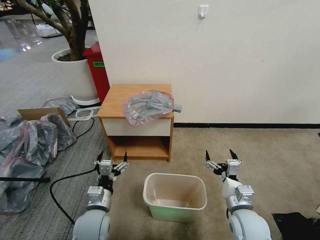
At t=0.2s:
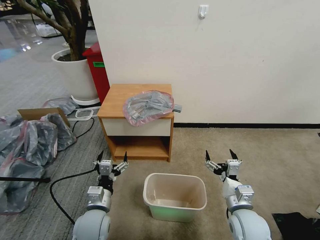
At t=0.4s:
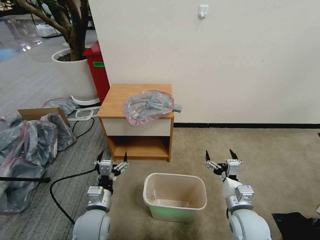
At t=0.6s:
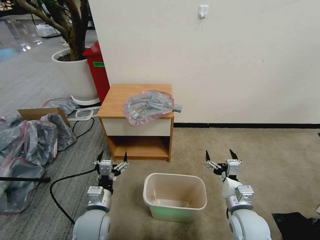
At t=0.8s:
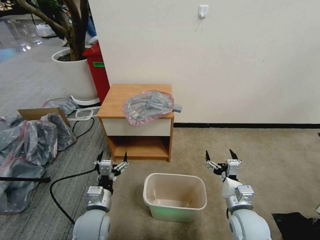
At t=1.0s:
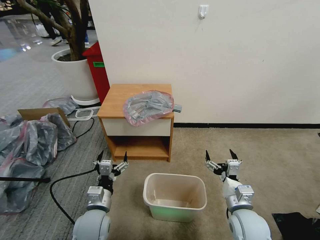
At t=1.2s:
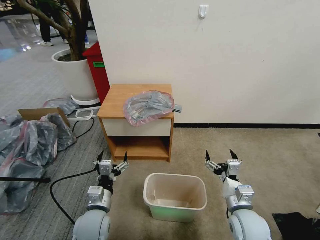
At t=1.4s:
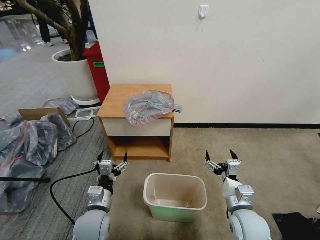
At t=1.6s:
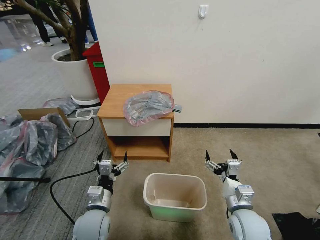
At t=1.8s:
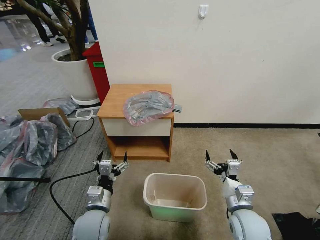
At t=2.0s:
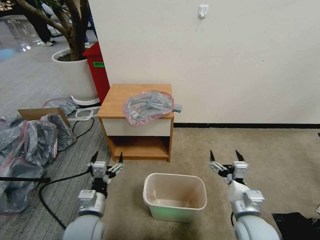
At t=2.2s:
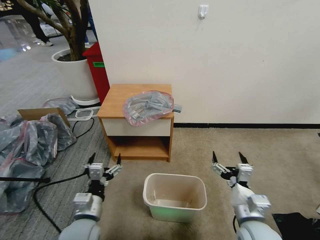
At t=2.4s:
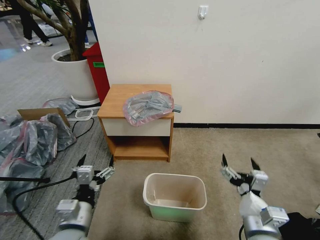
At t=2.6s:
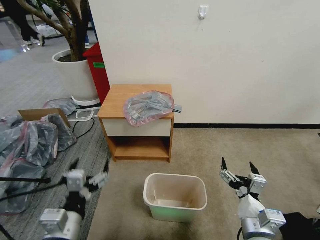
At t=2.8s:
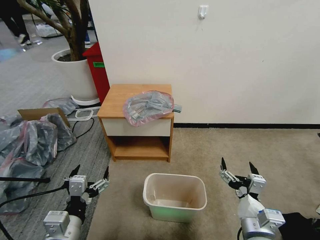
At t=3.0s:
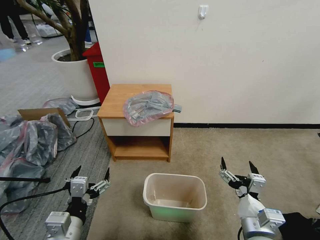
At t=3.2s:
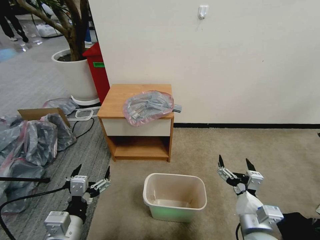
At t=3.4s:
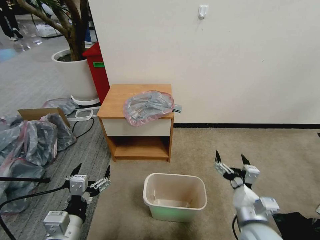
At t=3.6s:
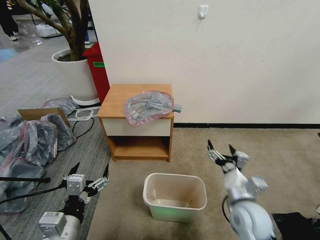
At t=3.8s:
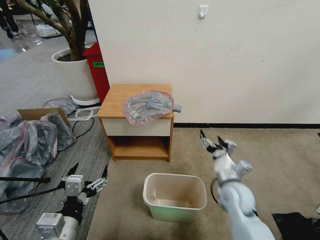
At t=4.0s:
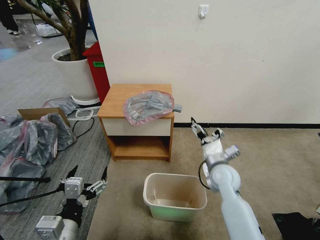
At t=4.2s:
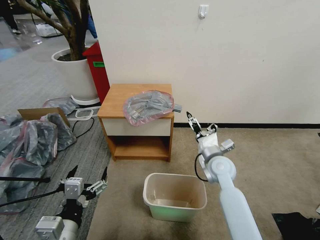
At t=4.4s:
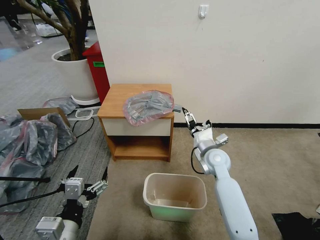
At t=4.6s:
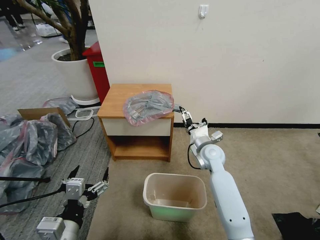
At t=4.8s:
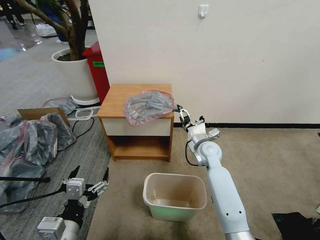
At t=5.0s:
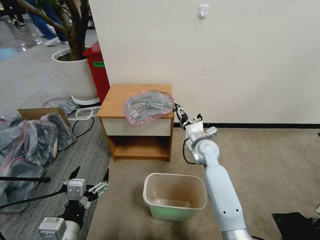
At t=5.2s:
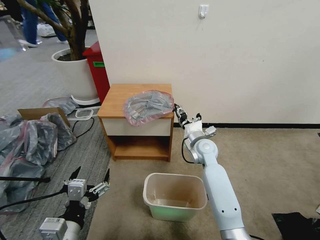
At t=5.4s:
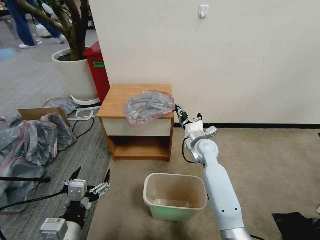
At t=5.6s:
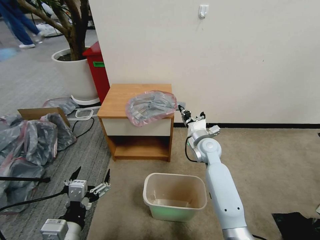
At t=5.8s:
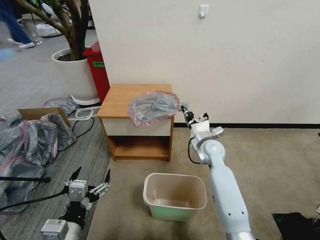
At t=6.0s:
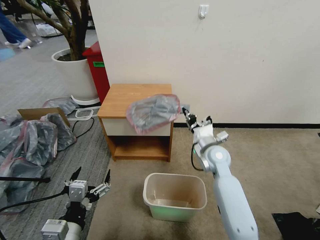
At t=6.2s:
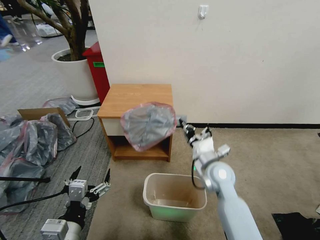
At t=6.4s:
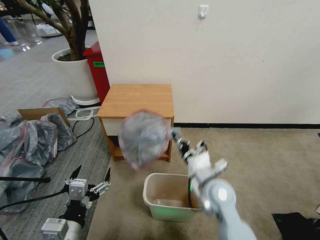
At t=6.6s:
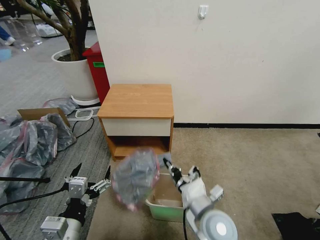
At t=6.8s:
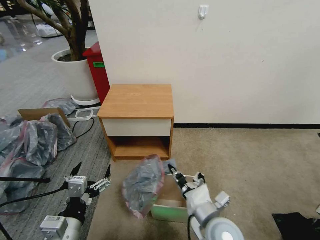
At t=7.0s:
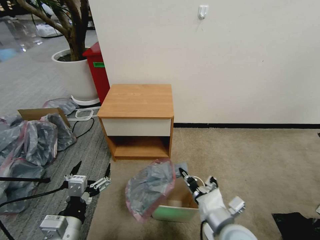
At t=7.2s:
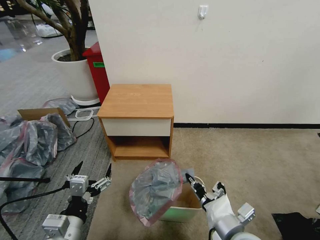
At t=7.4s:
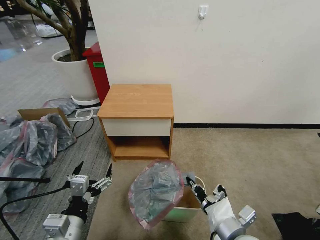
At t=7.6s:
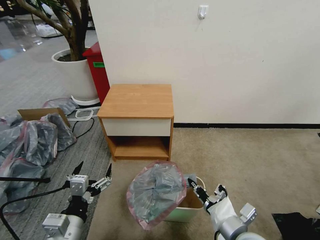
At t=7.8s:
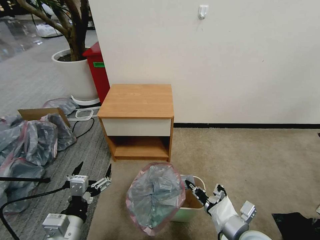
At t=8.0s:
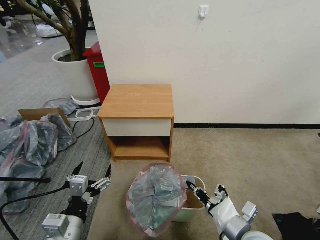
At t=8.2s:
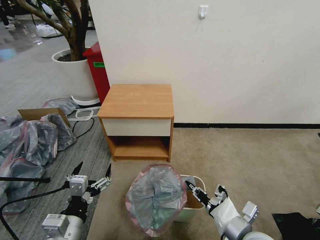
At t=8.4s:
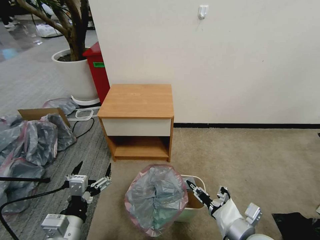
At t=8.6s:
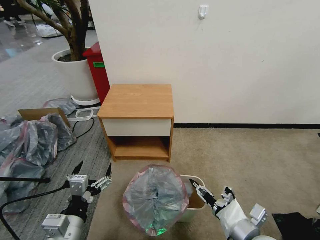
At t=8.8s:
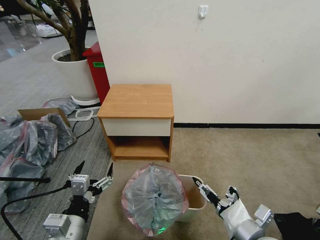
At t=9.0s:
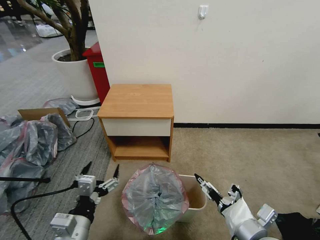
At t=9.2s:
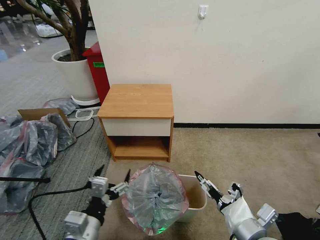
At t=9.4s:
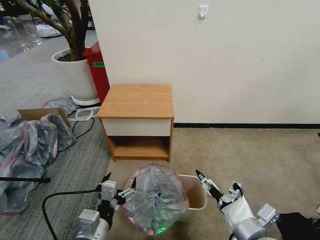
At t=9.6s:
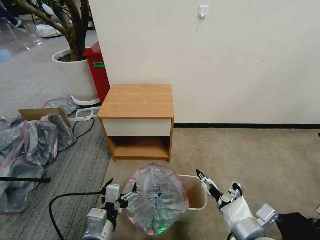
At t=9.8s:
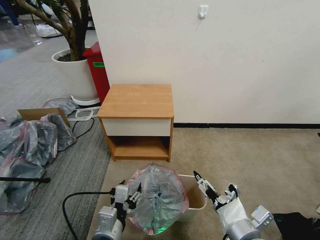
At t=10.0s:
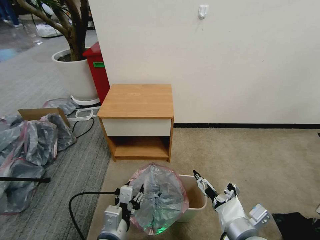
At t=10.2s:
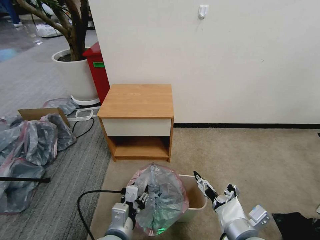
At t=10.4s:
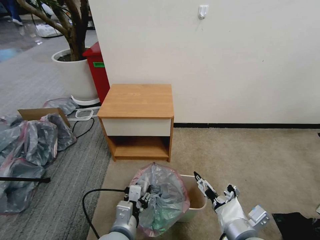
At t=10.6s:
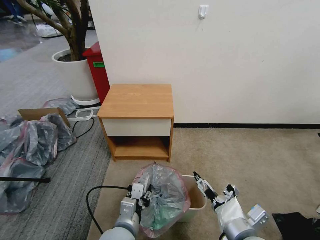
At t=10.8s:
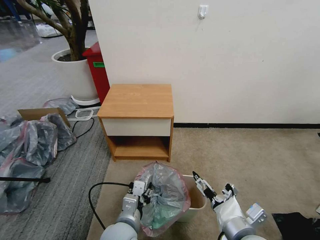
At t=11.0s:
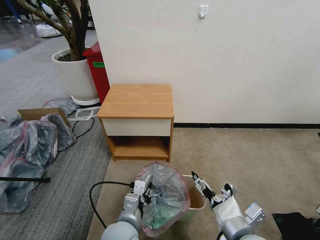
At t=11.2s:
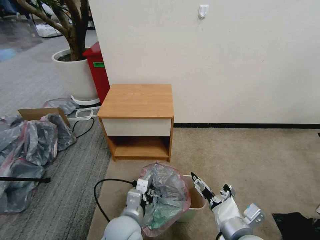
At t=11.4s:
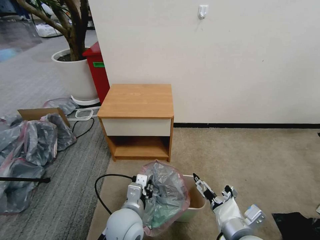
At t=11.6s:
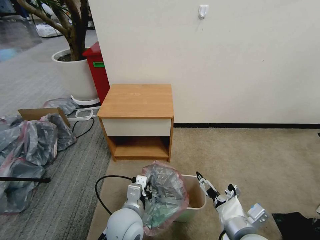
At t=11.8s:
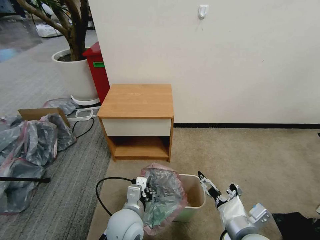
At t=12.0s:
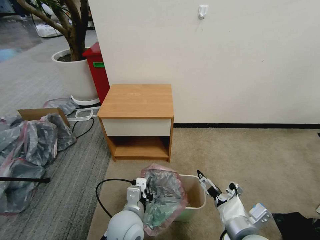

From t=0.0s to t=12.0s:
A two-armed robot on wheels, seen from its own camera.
Task of the whole recording: Pick up the garbage bag from the table and place it over the trash can.
From t=1.6s to t=3.0s: The right gripper travels backward by approximately 5 cm. The left gripper travels backward and upward by some 15 cm.
From t=3.0s to t=4.4s: The right gripper shifts about 25 cm forward.
From t=4.4s to t=6.0s: The right gripper closes its fingers.
From t=6.0s to t=7.6s: The right gripper moves backward, roughly 25 cm.
From t=7.6s to t=9.0s: The right gripper opens.
From t=9.0s to t=10.4s: The left gripper heads to the right, covering some 10 cm, and closes.
From t=10.4s to t=12.0s: The left gripper travels forward by roughly 5 cm, and closes up.

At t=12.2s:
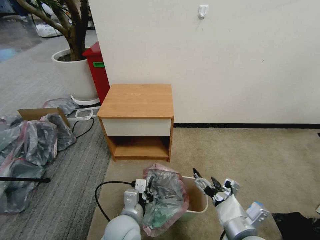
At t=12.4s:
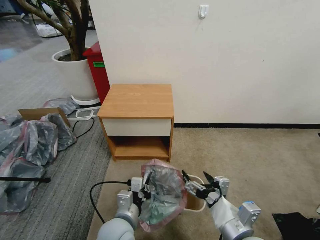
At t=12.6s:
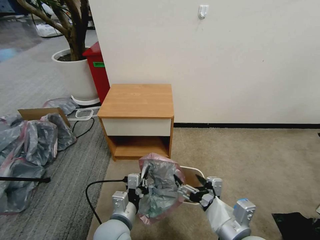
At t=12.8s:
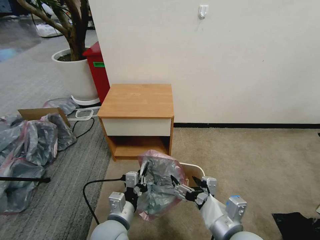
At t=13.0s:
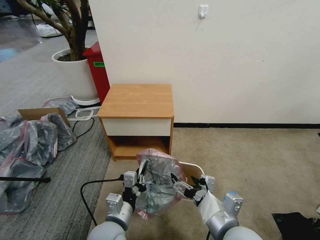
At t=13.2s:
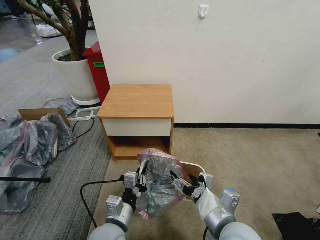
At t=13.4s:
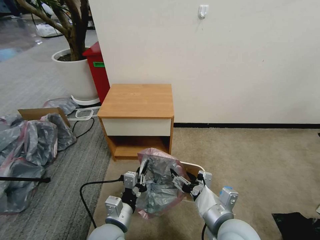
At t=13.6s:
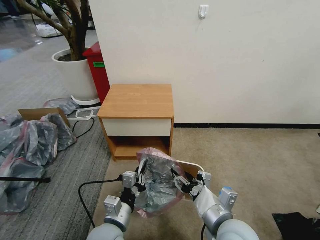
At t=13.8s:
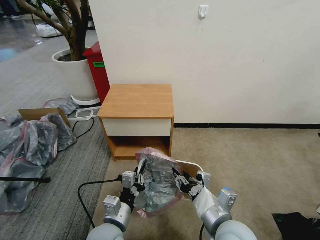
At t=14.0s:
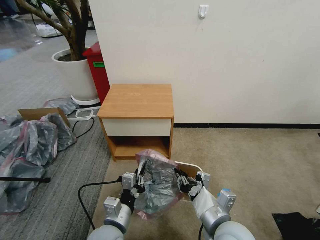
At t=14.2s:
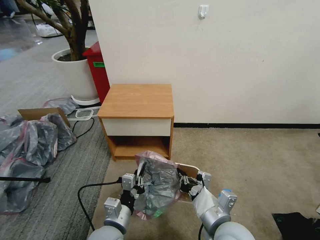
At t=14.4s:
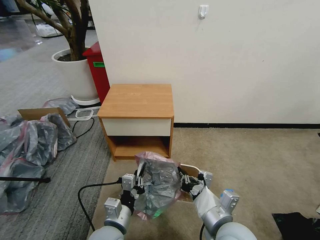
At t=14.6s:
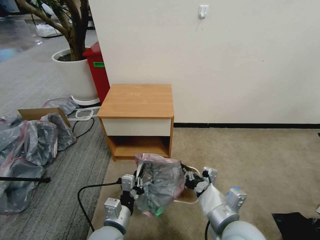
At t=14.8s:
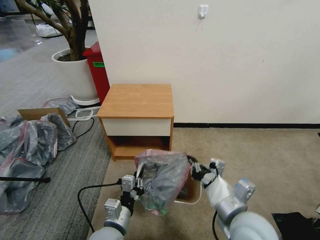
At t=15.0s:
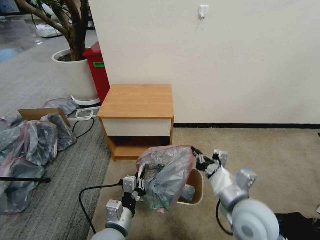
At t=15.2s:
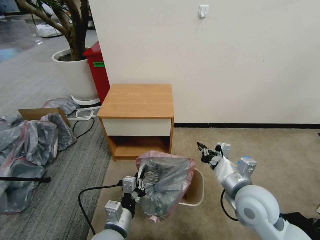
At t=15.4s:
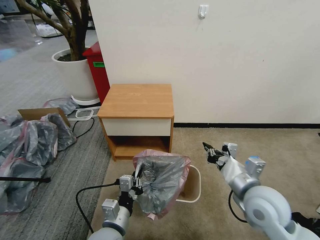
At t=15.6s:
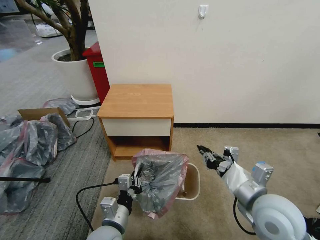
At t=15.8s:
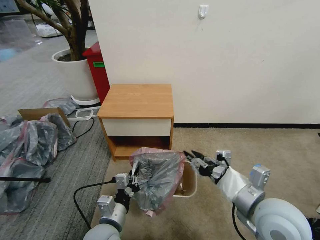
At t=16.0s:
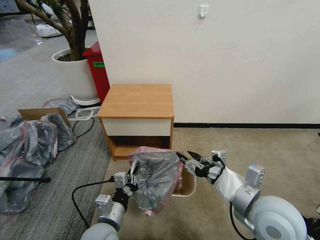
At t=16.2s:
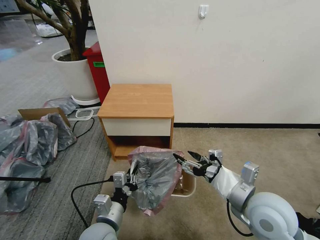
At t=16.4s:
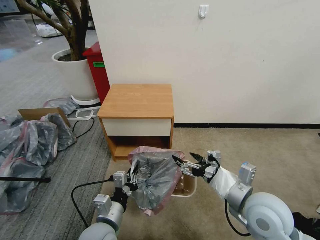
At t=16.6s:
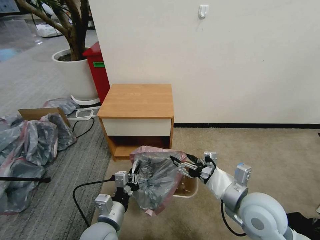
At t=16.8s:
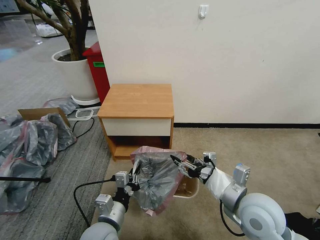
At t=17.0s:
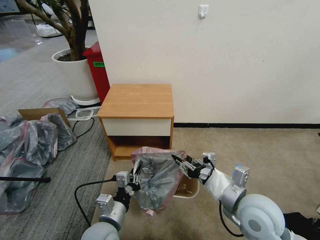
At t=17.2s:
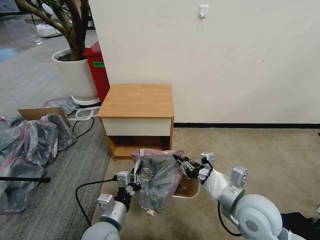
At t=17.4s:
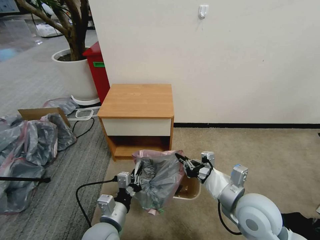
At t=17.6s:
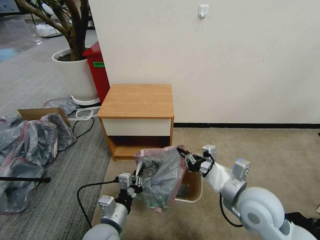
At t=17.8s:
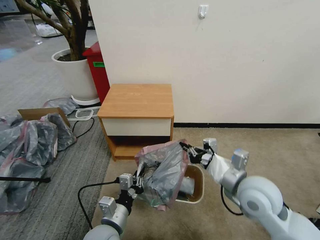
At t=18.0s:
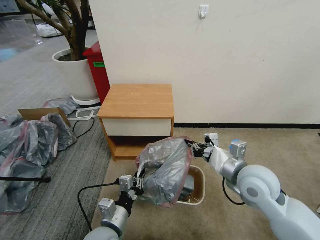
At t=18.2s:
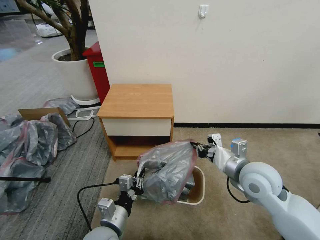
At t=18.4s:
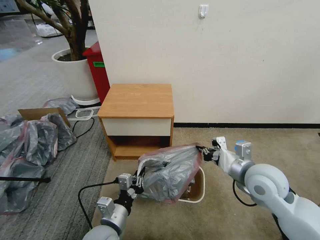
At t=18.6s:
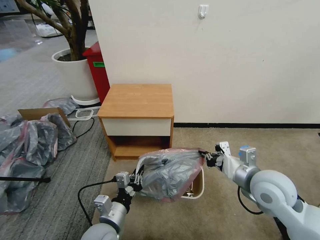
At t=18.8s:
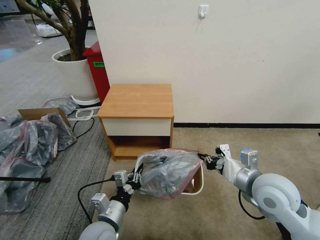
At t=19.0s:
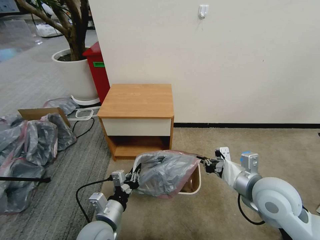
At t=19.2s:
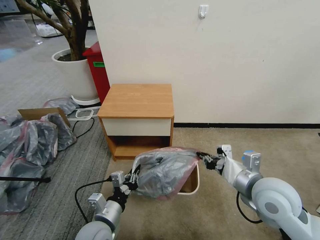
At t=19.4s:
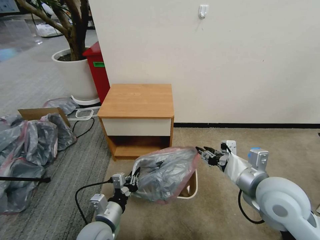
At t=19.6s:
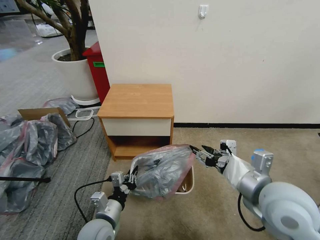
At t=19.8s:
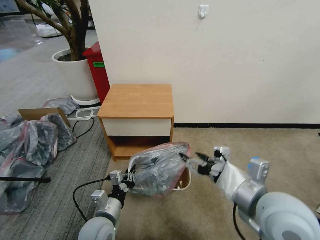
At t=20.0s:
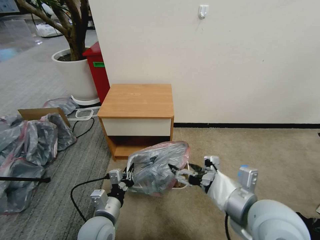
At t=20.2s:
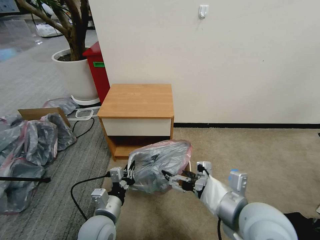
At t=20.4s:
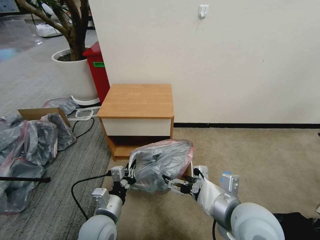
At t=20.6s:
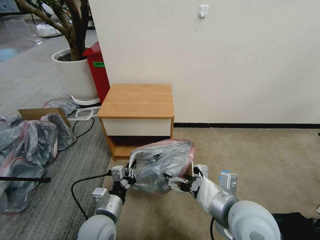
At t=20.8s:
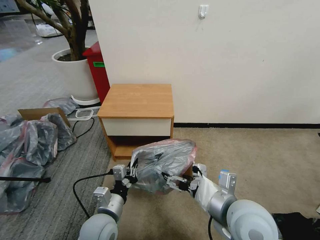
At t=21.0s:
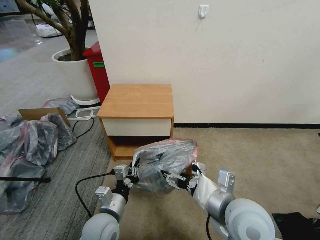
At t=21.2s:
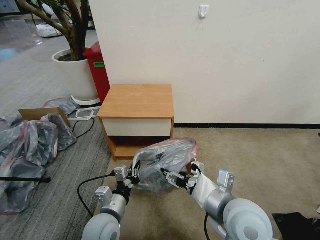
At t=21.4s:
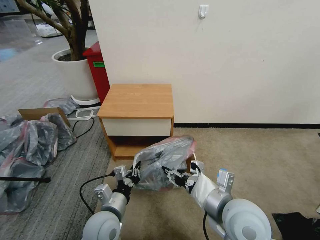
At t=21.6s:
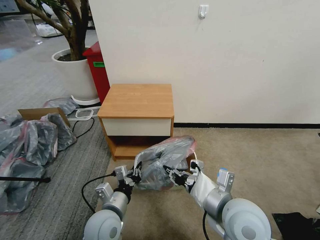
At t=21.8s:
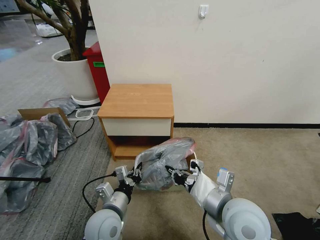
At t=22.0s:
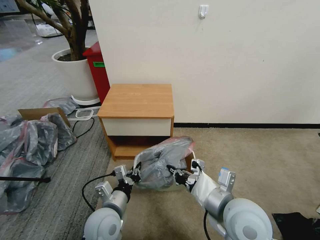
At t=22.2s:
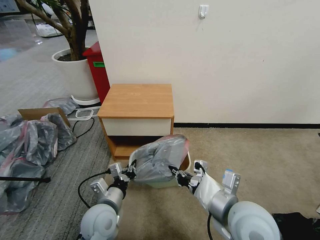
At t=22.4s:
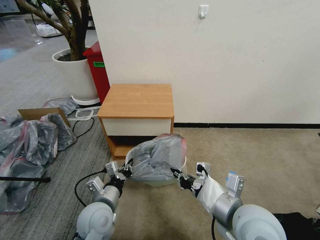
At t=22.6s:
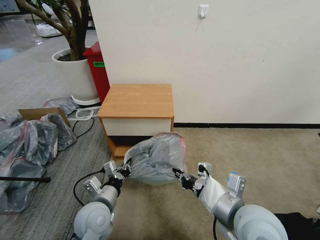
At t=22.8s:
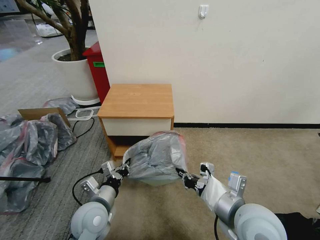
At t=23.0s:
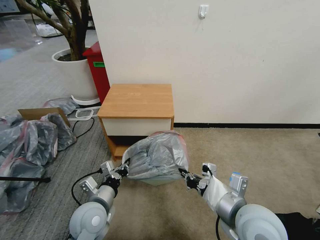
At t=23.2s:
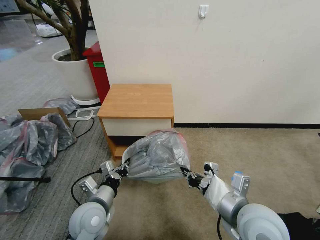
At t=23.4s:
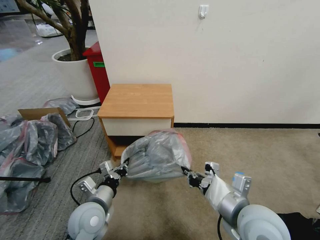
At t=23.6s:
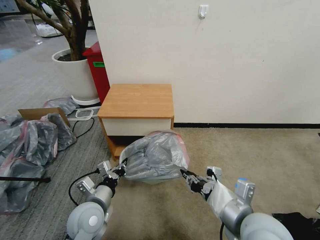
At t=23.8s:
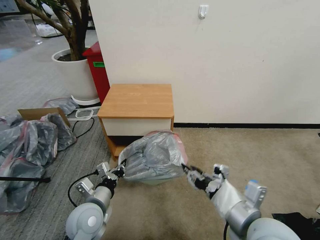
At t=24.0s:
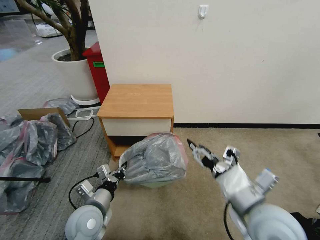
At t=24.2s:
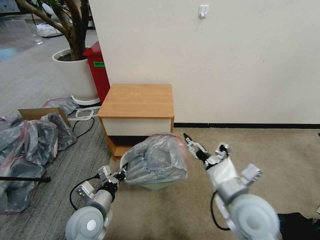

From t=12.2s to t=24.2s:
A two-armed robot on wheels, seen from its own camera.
Task of the whole recording: Pick up the garbage bag from the table and place it over the trash can.
From t=12.2s to t=13.8s: The right gripper shifts by some 5 cm, and closes its fingers.
From t=13.8s to t=15.2s: The right gripper goes approximately 10 cm forward and to the right, and closes.
From t=15.2s to t=16.6s: The right gripper opens up.
From t=16.6s to t=18.2s: The right gripper moves forward, roughly 5 cm, and closes.
From t=18.2s to t=19.8s: The right gripper goes some 10 cm backward and upward, and opens its fingers.
From t=19.8s to t=21.2s: The right gripper is displaced downward and to the left by some 10 cm.
From t=21.2s to t=22.6s: The right gripper closes its fingers.
From t=22.6s to t=24.2s: The right gripper opens up.
